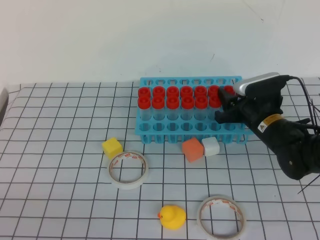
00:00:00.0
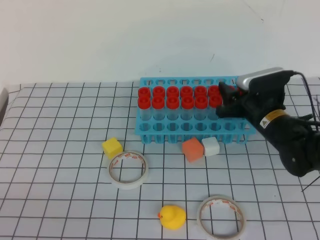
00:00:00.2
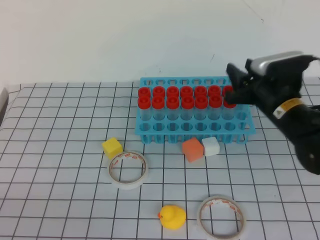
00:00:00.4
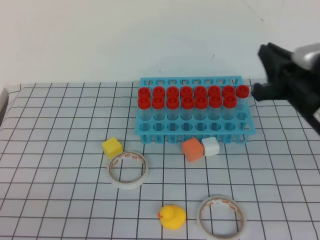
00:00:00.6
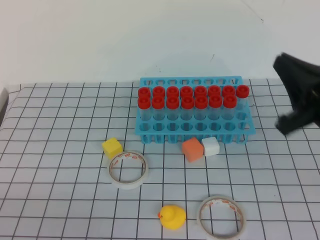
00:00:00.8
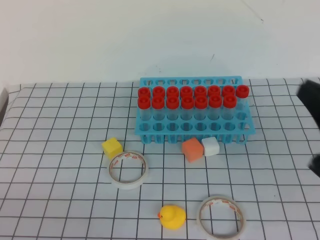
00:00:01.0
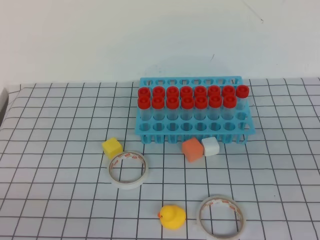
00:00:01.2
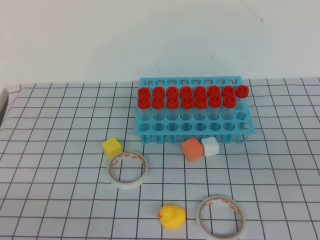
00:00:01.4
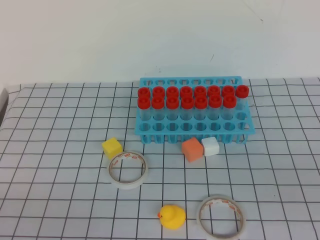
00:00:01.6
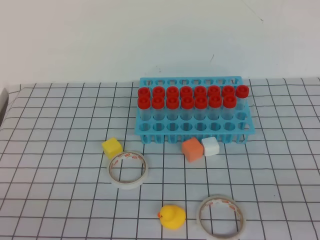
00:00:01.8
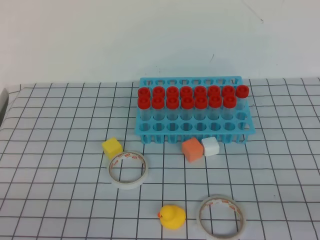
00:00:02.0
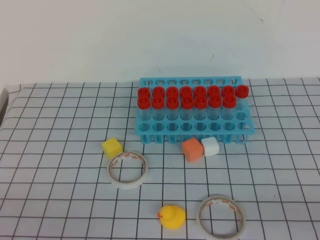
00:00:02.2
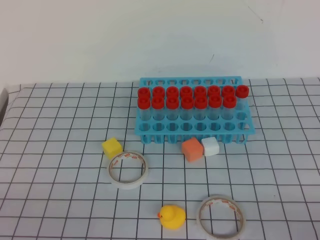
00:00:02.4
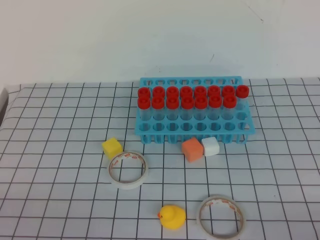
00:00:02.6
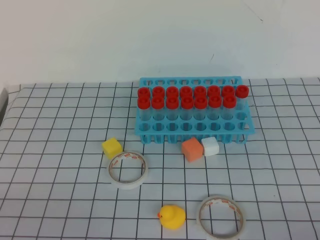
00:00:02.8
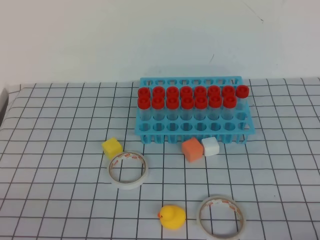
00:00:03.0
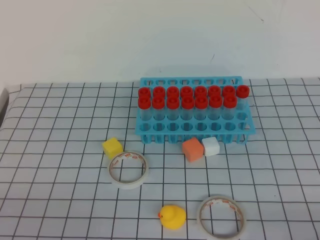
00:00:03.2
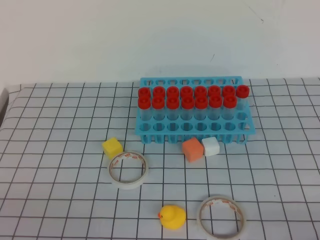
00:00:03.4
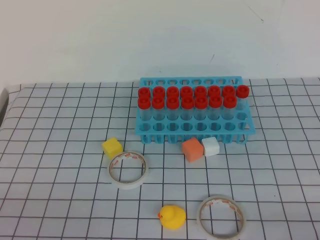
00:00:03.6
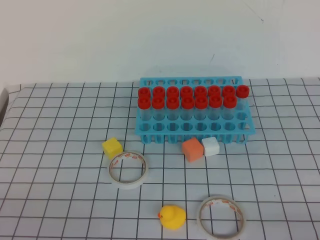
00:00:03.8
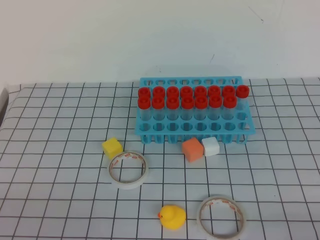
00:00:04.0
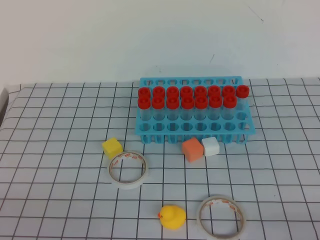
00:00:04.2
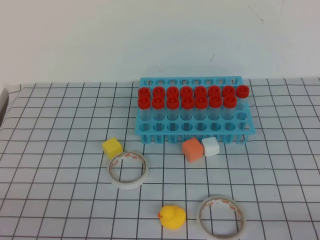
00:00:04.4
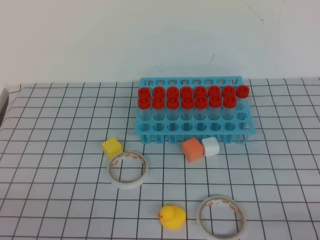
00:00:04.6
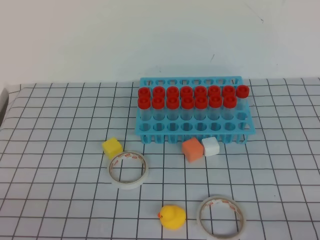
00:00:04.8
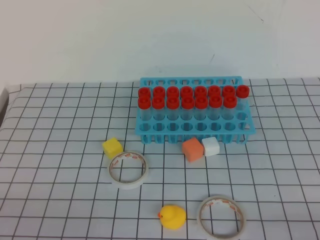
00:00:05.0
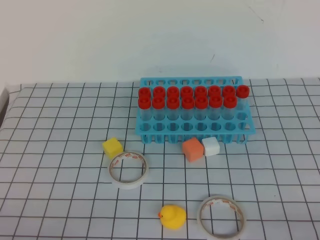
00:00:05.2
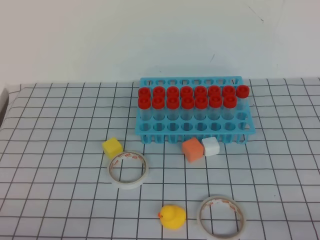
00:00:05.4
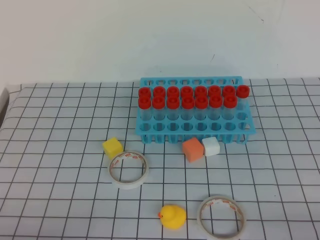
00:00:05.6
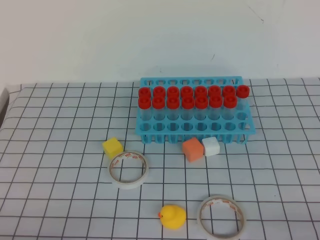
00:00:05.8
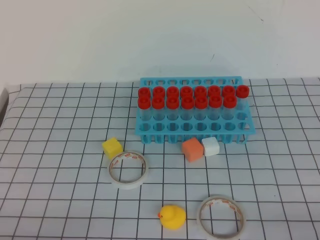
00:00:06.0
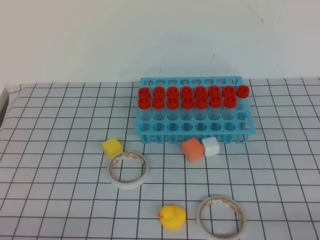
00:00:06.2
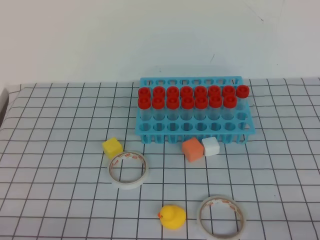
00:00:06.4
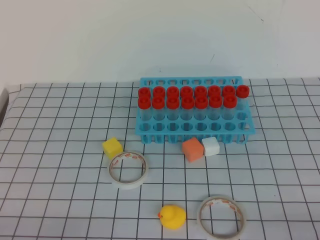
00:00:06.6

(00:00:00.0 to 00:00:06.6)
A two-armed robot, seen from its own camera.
00:00:00.0 - 00:00:01.6: The right gripper heads backward and upward, covering approximately 35 cm, and closes.
